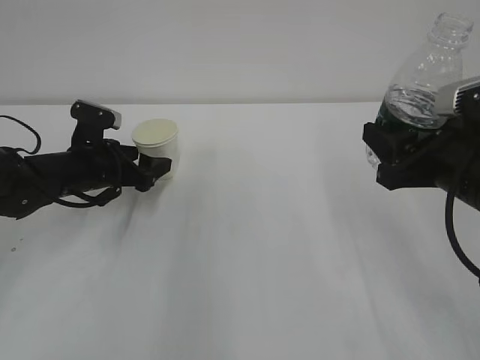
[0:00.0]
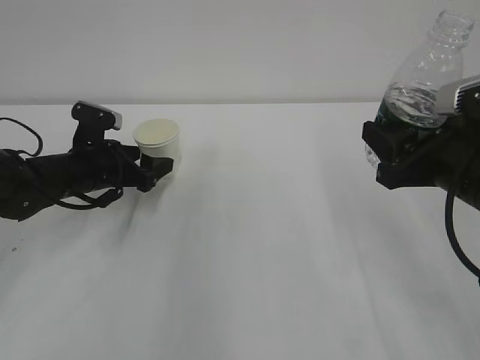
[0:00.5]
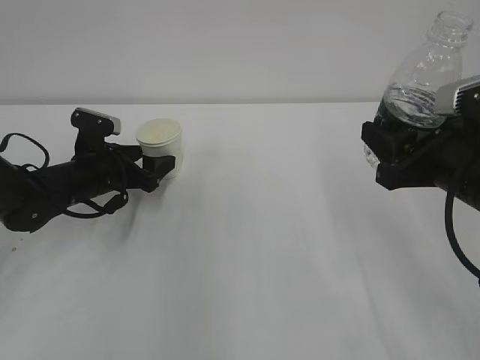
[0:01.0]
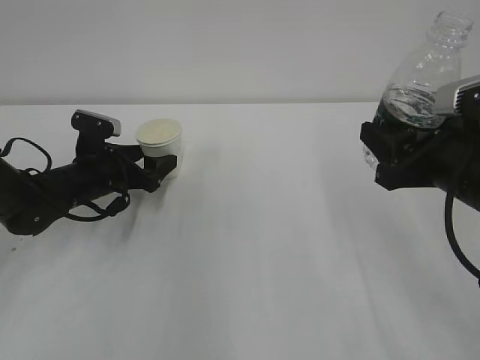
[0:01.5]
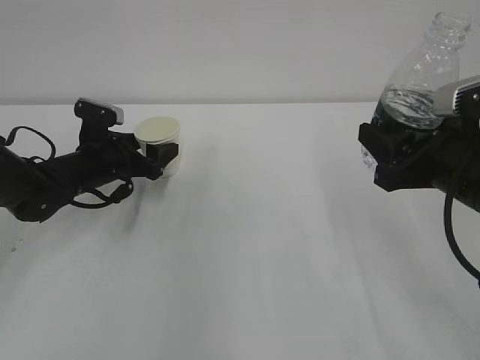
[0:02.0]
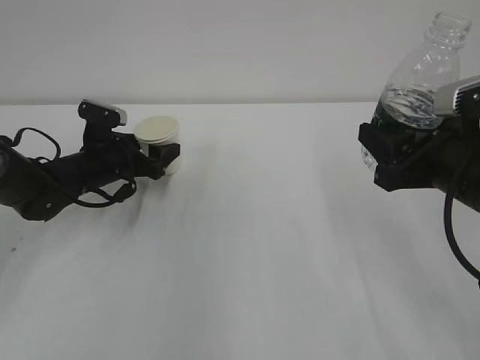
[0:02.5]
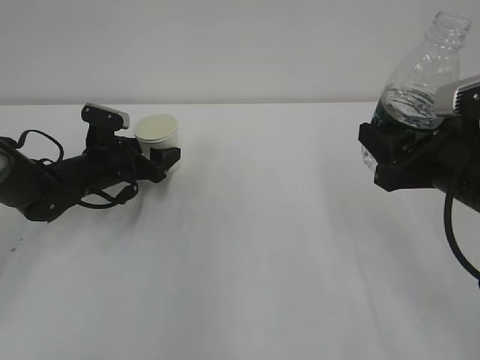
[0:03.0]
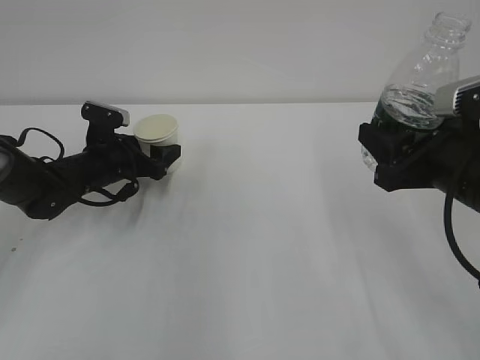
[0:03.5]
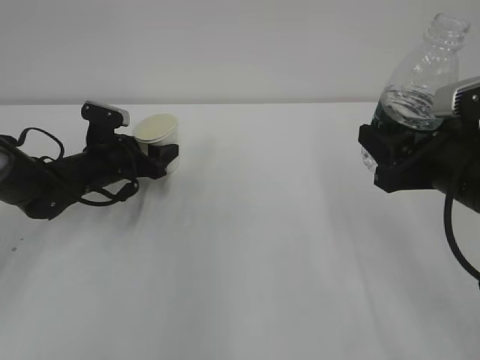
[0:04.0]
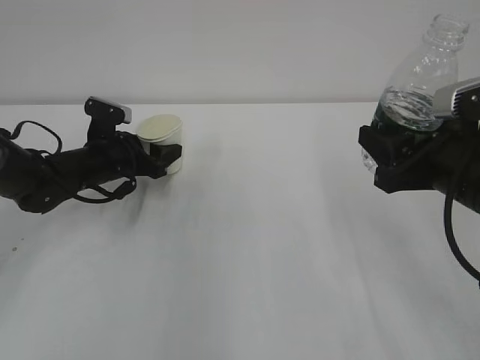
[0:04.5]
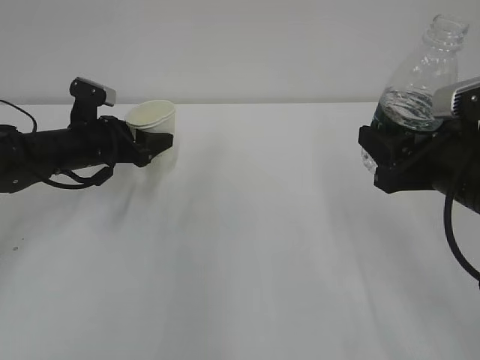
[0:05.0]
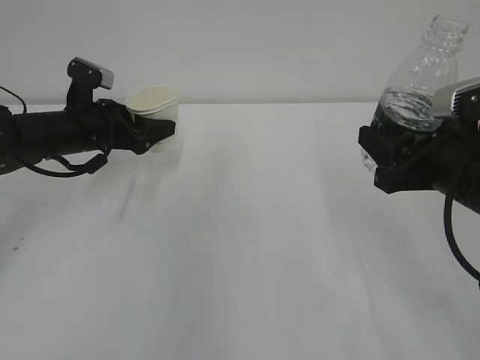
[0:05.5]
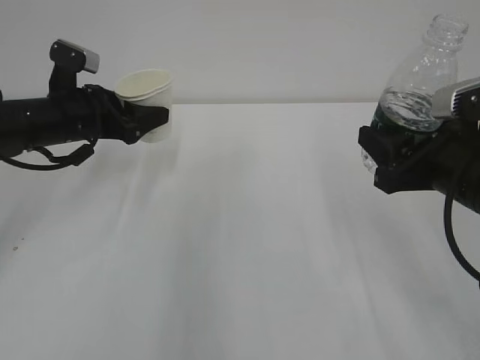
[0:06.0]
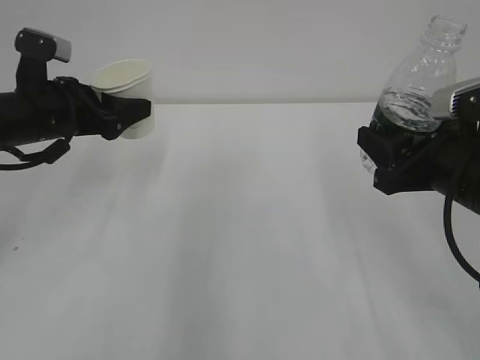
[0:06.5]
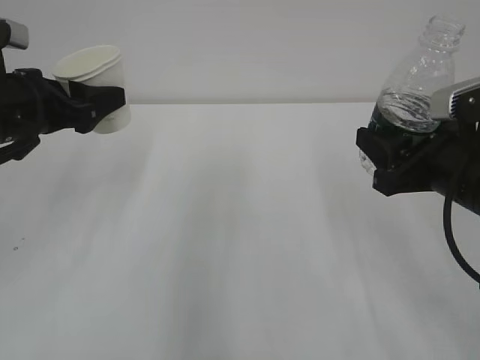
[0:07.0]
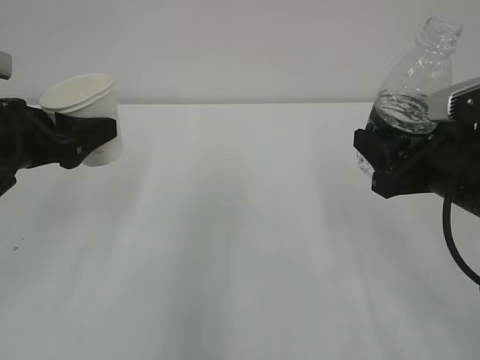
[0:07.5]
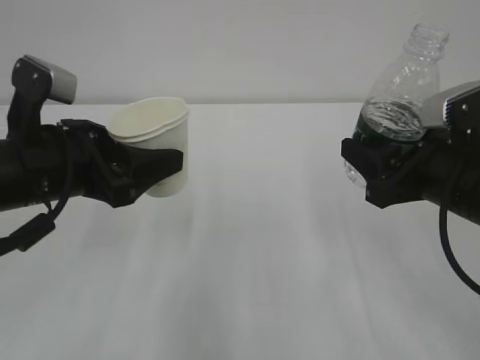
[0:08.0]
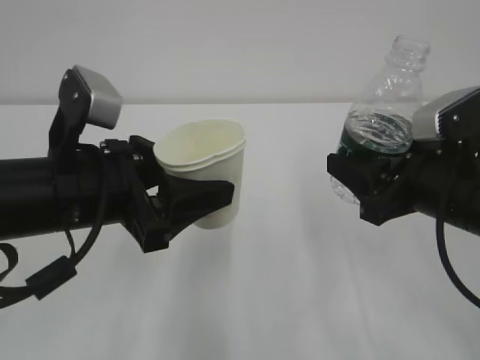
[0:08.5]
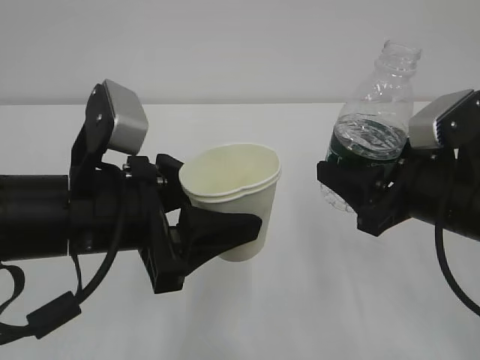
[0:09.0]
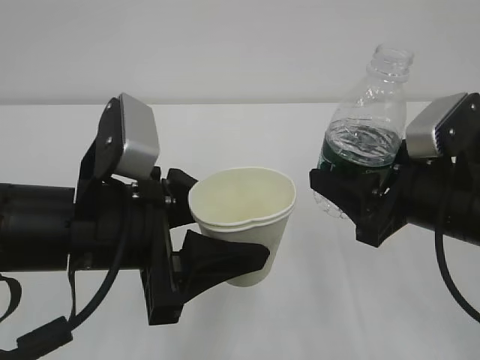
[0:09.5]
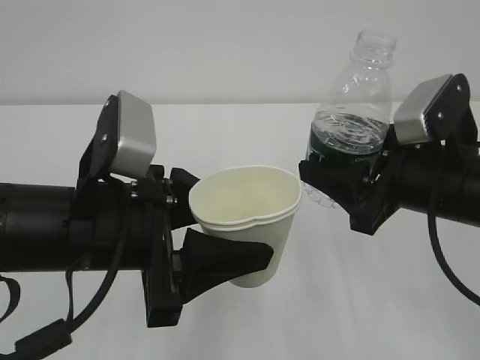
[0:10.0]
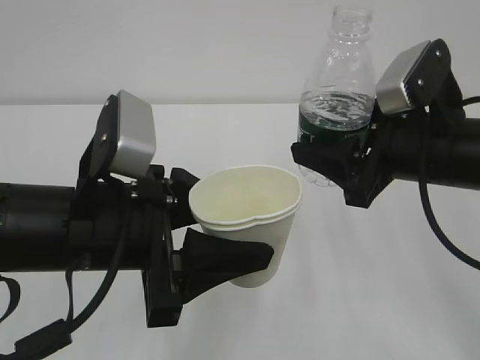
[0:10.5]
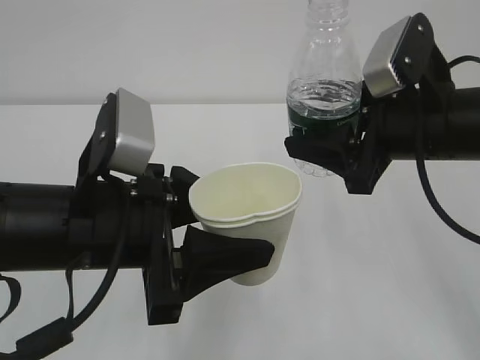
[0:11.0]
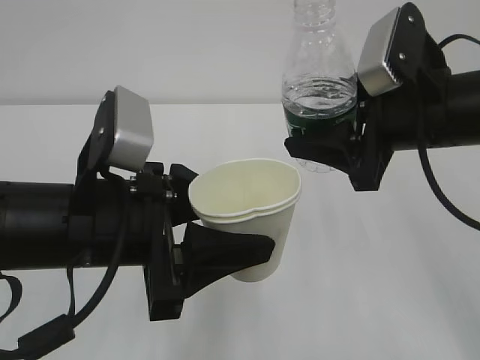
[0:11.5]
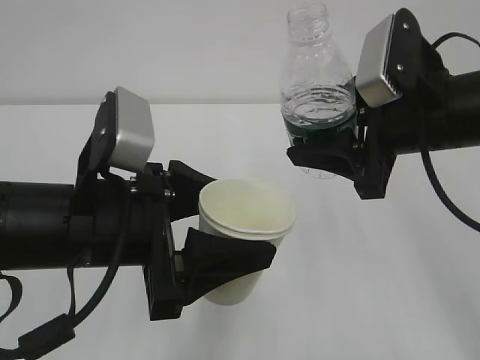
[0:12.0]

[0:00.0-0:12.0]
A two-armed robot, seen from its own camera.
Step, 0:00.0 to 0:04.0: Grasp the cup with left gripper.
0:00.0 to 0:02.0: The grippers move only a little.
0:02.0 to 0:04.0: The left gripper closes.
0:04.0 to 0:06.0: The left gripper is displaced upward by about 10 cm.
0:06.0 to 0:08.0: The left gripper moves backward, about 15 cm.
0:08.0 to 0:10.0: The left gripper heads to the right and backward, covering roughly 10 cm.
0:10.0 to 0:12.0: The right gripper is displaced upward by about 5 cm. Meanwhile the left gripper opens.

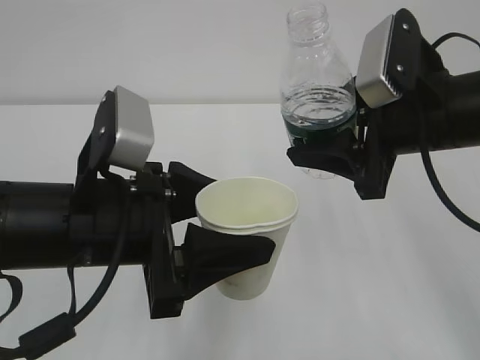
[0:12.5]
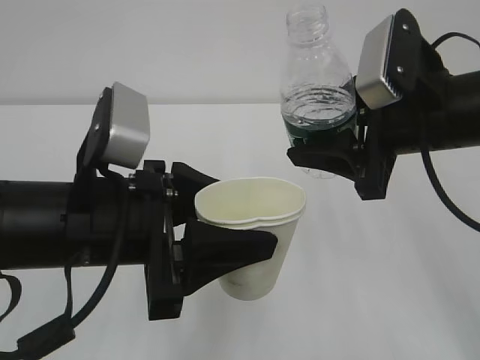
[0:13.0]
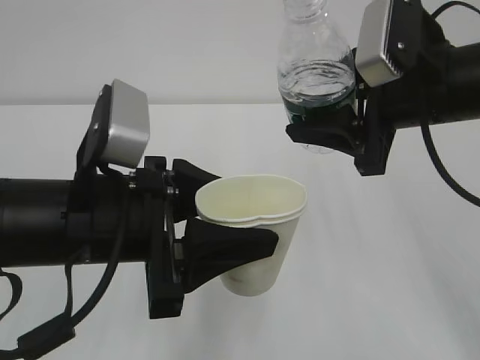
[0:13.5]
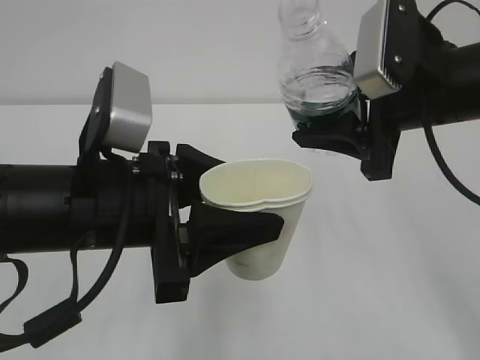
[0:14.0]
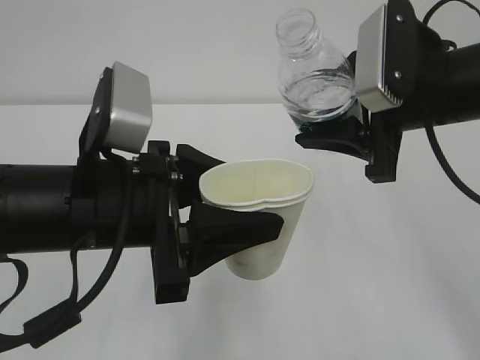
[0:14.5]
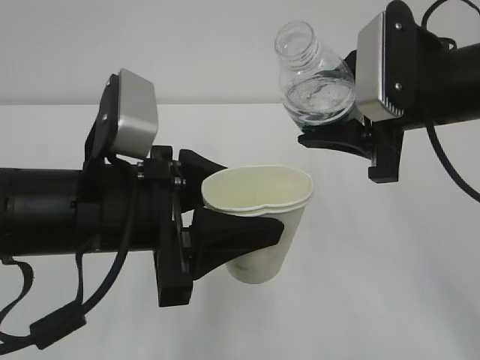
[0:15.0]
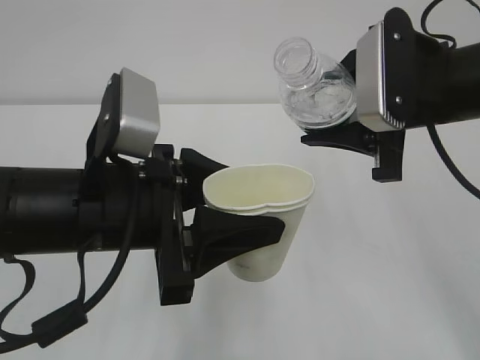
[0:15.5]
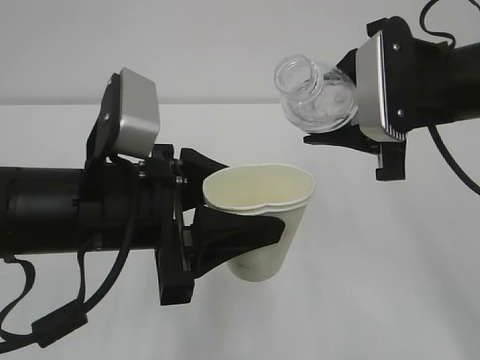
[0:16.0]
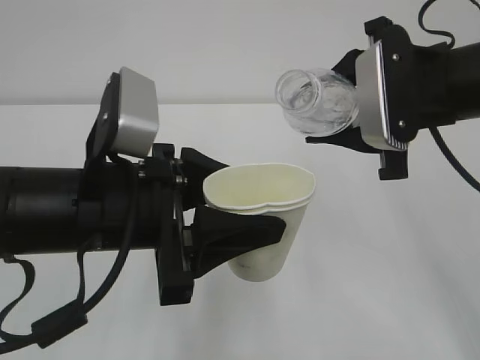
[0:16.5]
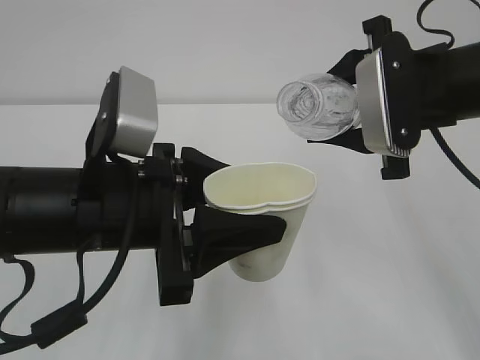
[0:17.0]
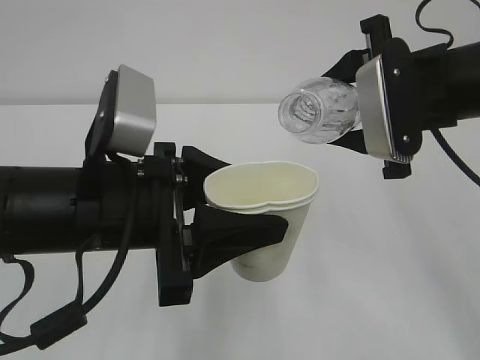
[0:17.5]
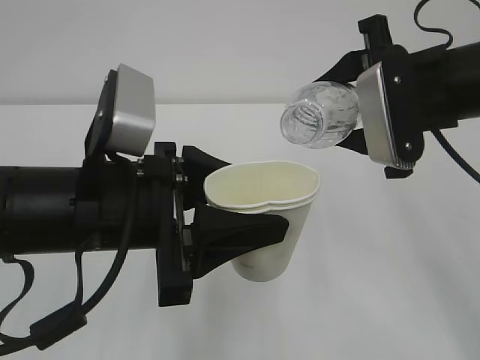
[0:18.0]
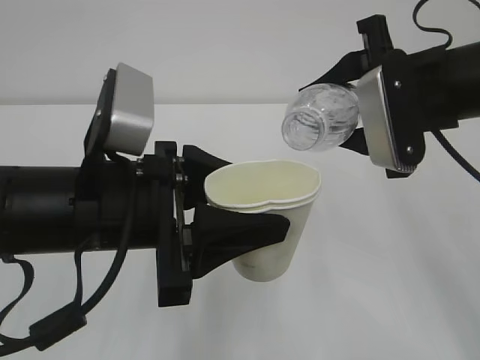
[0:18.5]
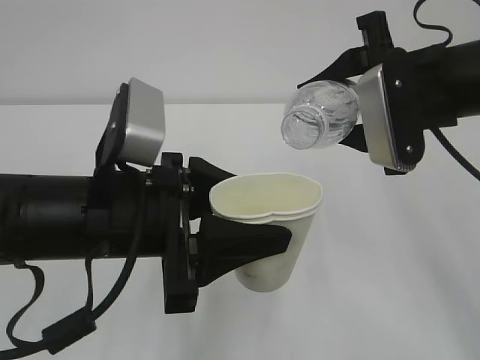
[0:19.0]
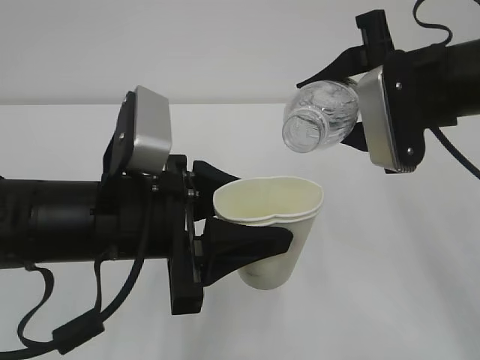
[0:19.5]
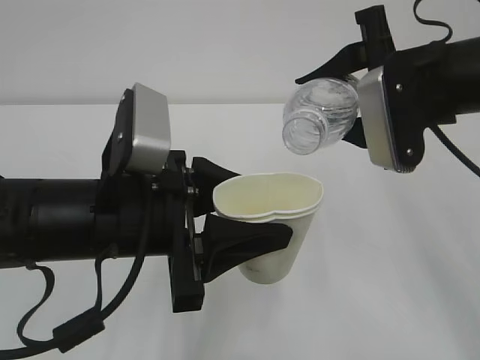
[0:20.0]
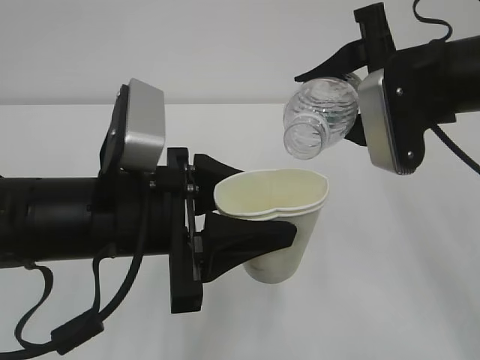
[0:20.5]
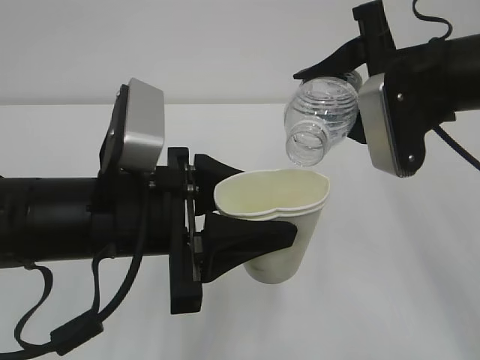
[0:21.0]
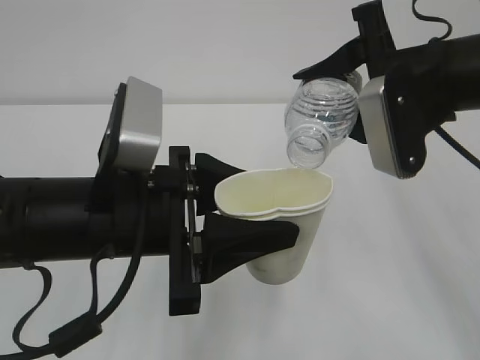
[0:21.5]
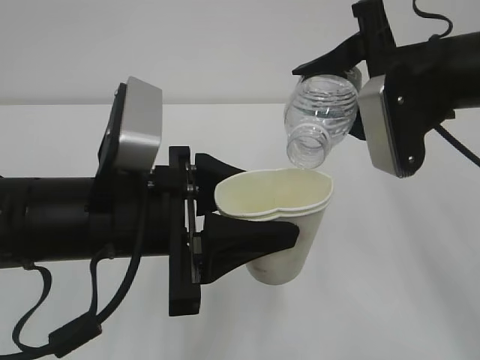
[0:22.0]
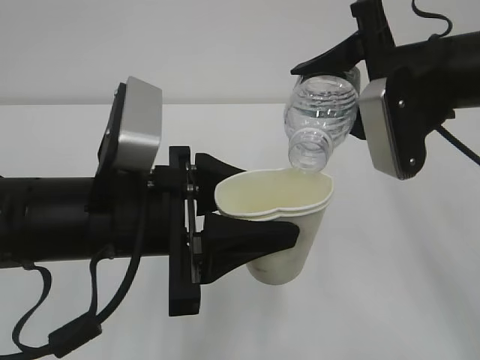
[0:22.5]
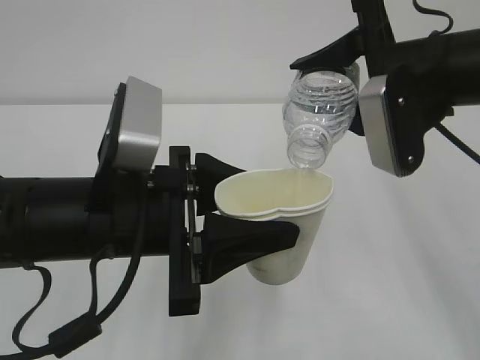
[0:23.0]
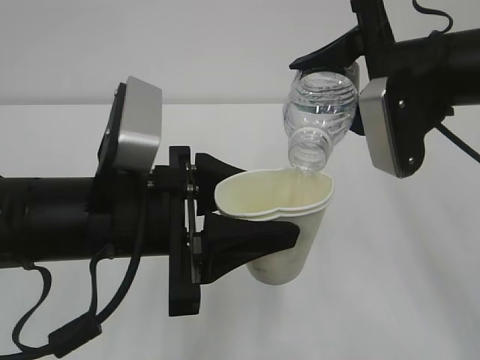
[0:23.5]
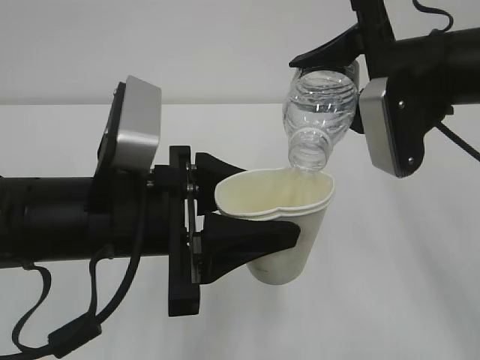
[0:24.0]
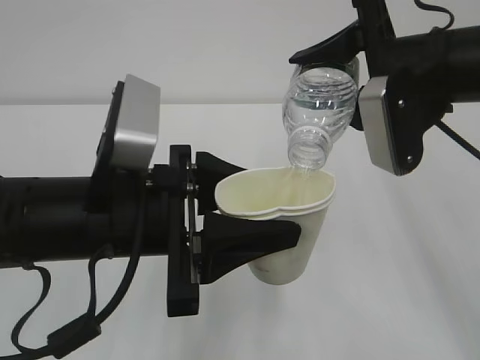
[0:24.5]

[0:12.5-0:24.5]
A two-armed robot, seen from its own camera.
0:12.5 to 0:14.5: The left gripper closes.
0:16.5 to 0:18.5: The grippers move only a little.
0:18.5 to 0:22.5: The grippers stay close to where they were, moving slightly.
0:22.5 to 0:24.5: Both grippers stay about where they are.

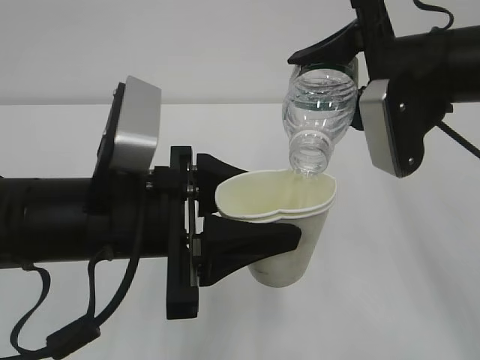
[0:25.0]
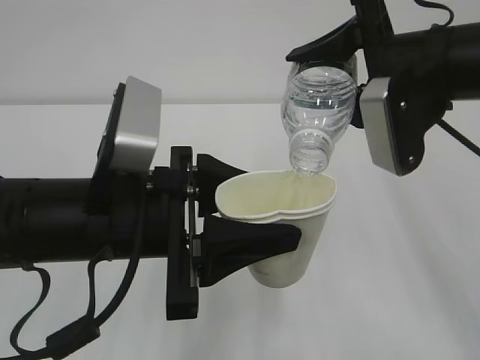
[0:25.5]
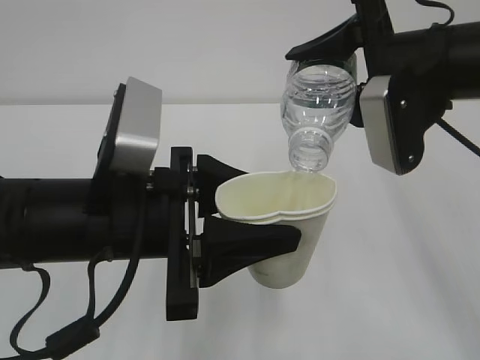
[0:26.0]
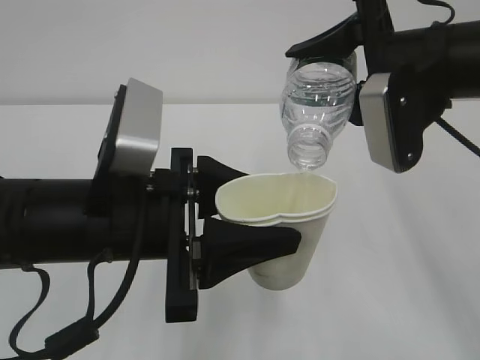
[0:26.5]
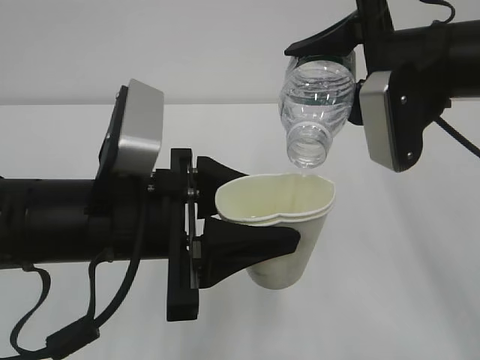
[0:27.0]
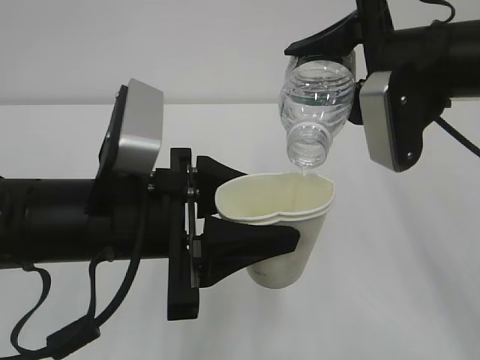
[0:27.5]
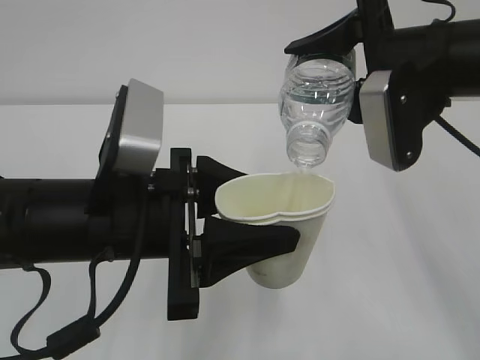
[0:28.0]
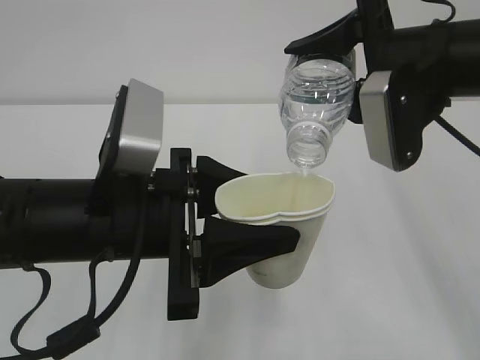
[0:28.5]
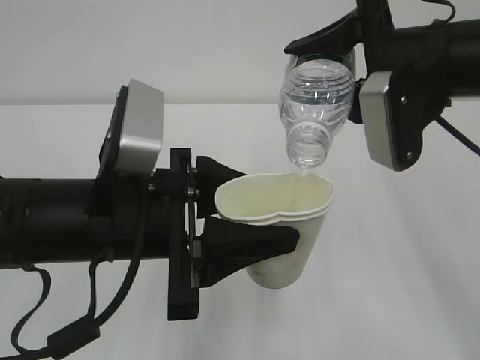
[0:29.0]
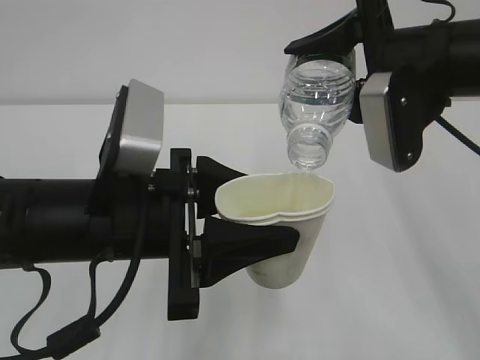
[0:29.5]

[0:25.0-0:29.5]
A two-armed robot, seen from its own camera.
0:25.0 to 0:29.5: The two grippers keep their place.
